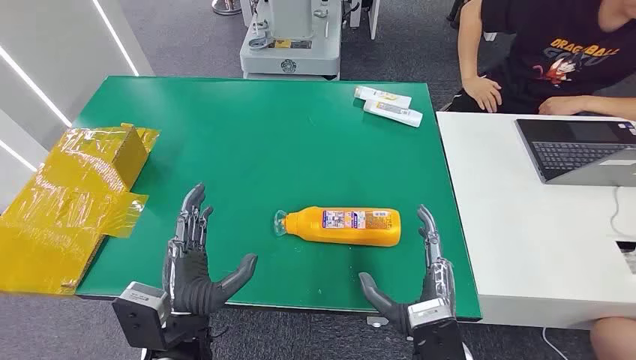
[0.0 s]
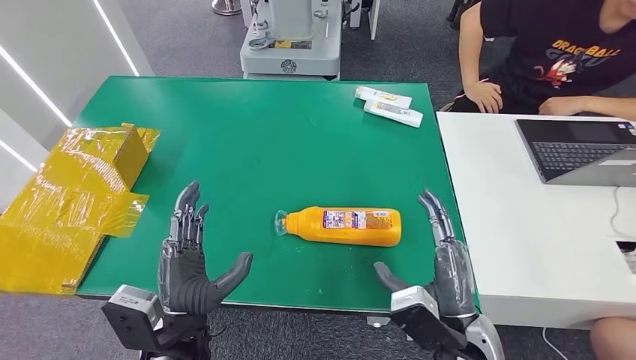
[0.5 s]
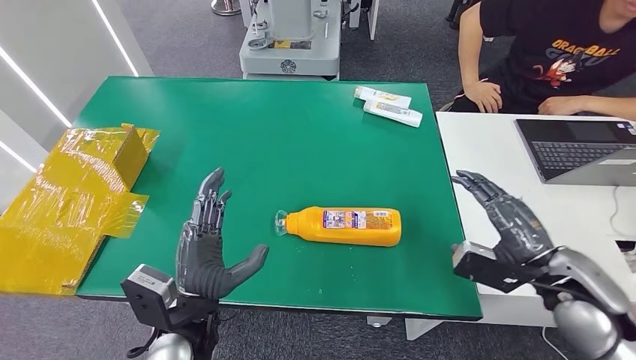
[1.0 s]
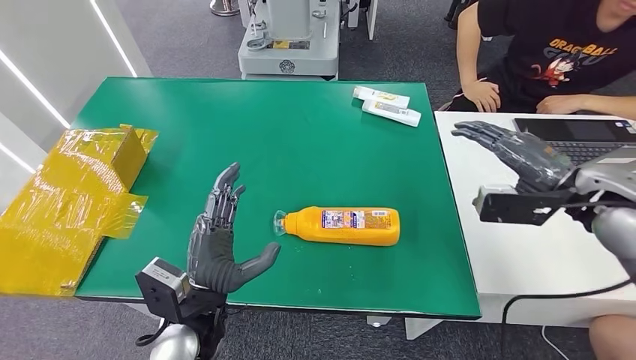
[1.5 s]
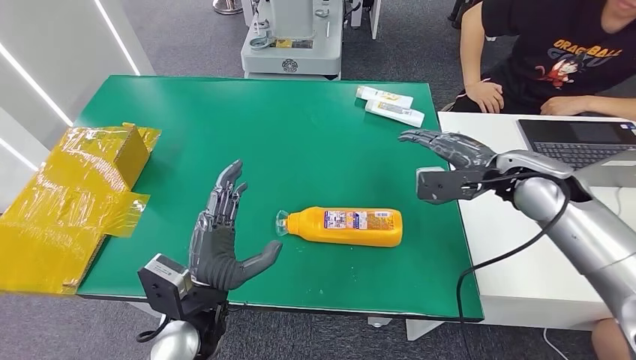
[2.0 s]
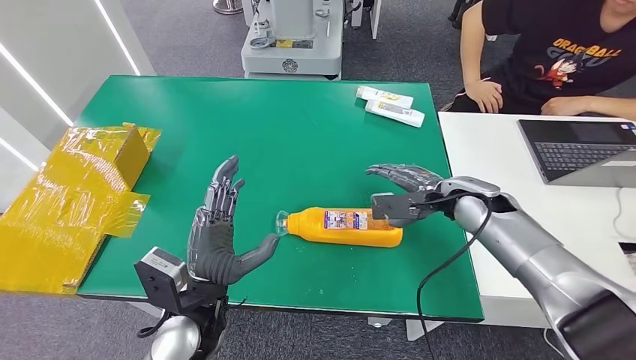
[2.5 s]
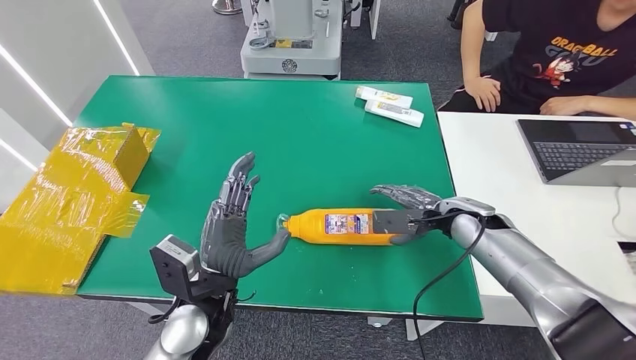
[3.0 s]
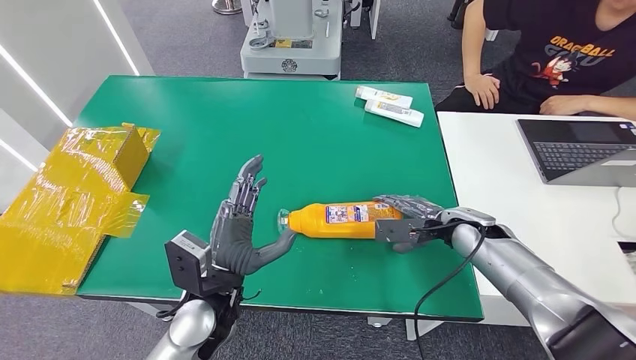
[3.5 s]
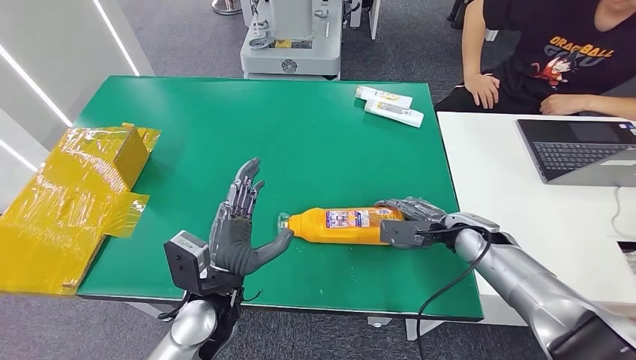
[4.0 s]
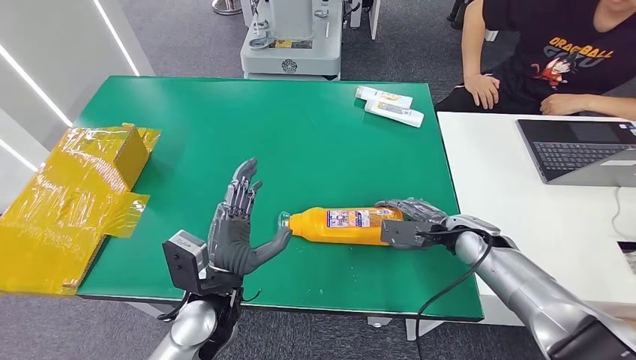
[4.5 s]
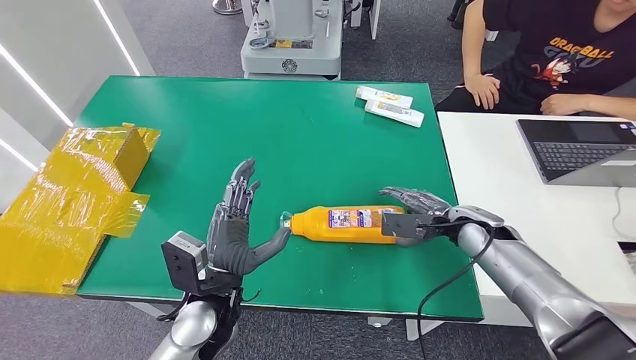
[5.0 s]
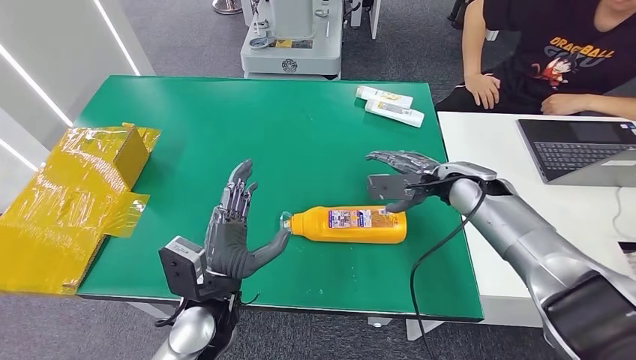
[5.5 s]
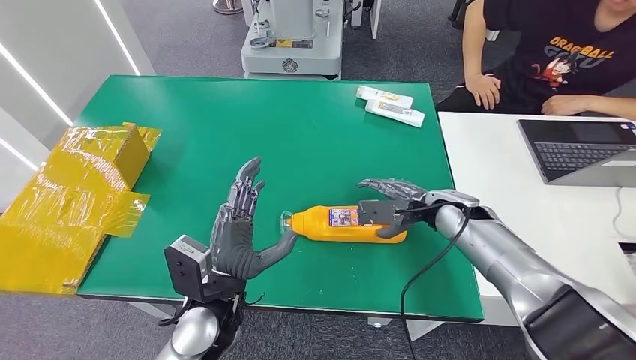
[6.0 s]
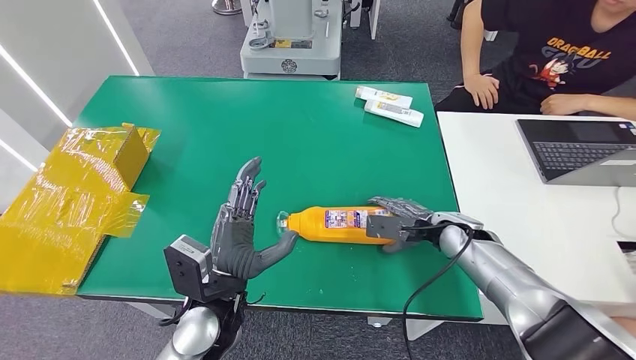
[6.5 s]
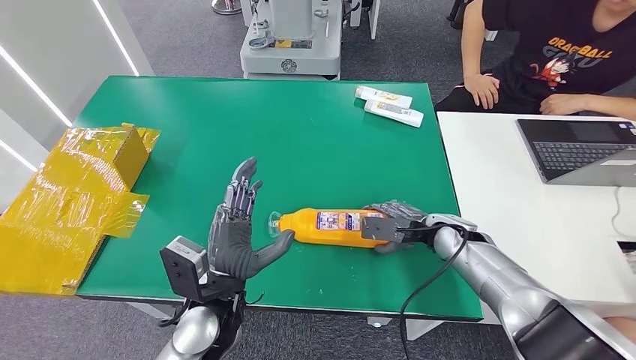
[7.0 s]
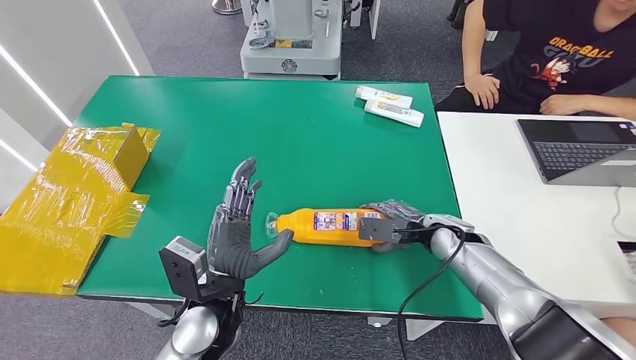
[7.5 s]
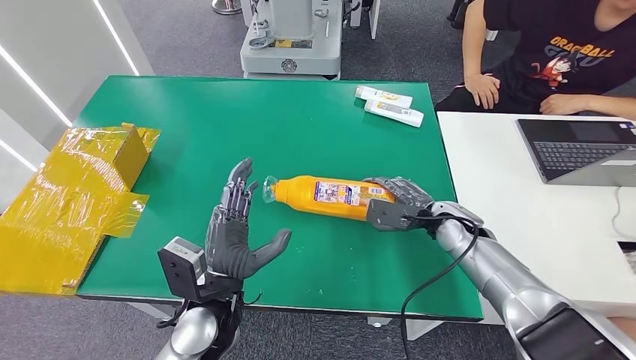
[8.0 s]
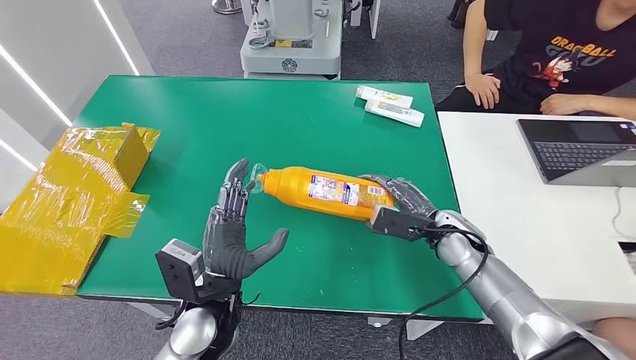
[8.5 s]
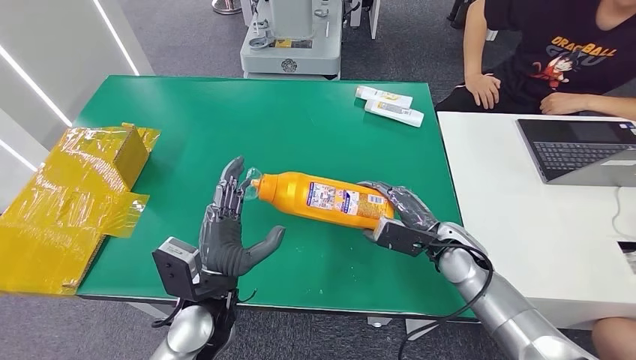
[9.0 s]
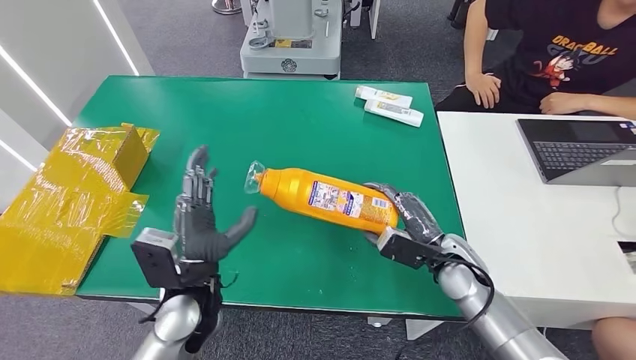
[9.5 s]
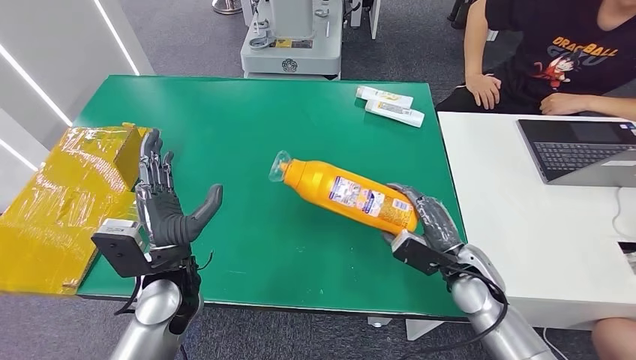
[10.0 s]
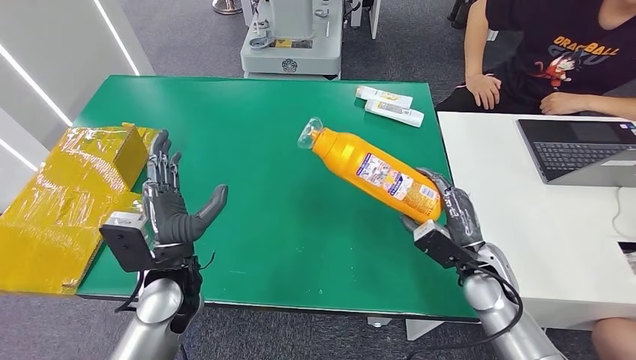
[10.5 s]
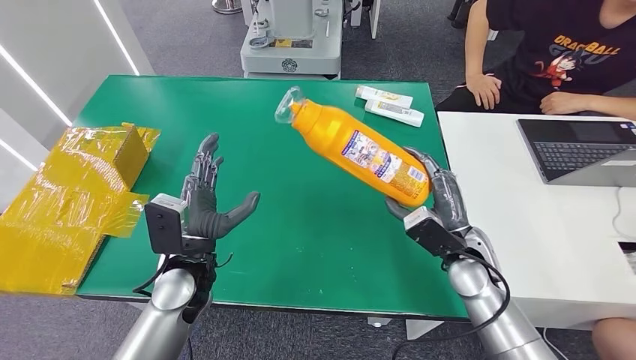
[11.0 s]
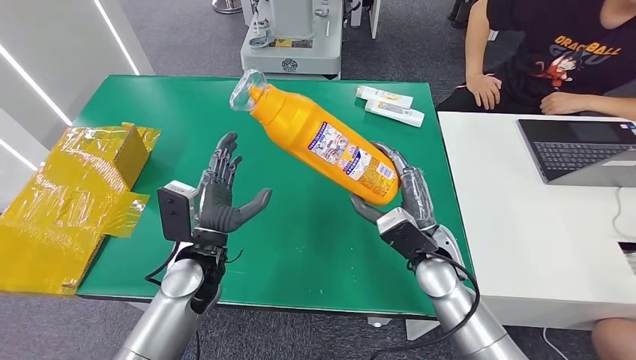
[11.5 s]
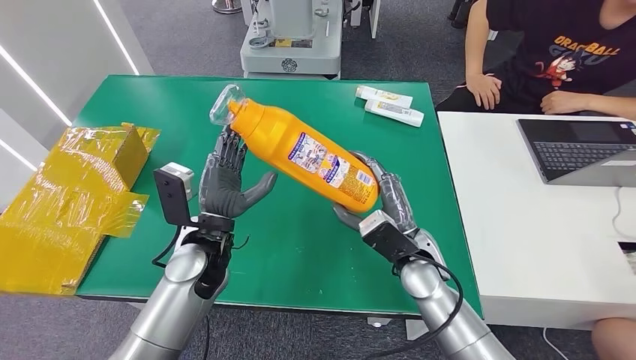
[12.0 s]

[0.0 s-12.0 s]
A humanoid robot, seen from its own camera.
Step, 0.0 to 9.5 s: Pick up the bottle from the table.
2.0 to 4.0 s: The right hand travels downward by approximately 15 cm.
6.0 to 8.0 s: There are only small adjustments of the hands.
8.0 to 10.0 s: The left hand heads to the left, covering some 5 cm. The right hand moves backward, approximately 10 cm.
10.0 to 12.0 s: The left hand changes place by about 5 cm. Meanwhile the right hand heads to the left, covering some 10 cm.

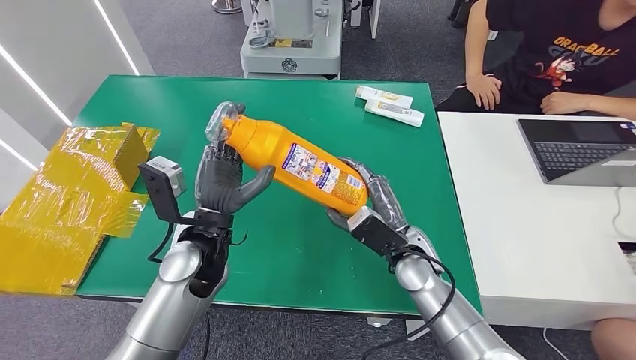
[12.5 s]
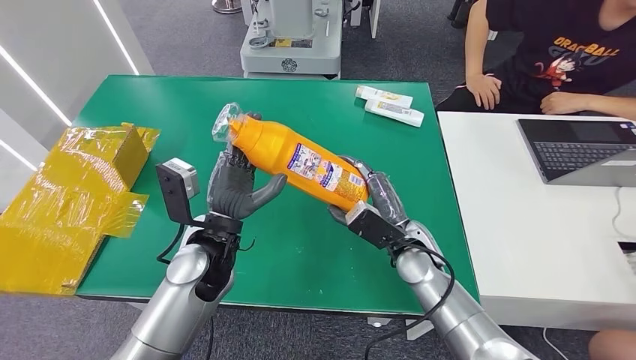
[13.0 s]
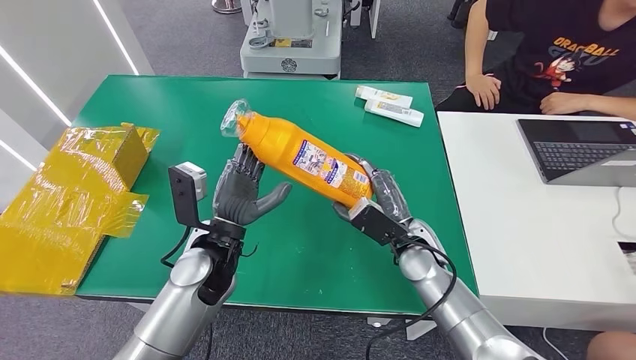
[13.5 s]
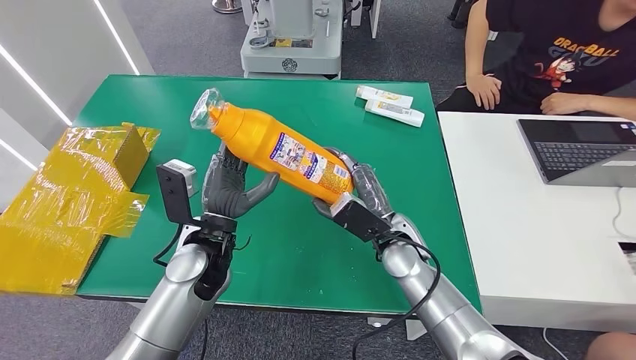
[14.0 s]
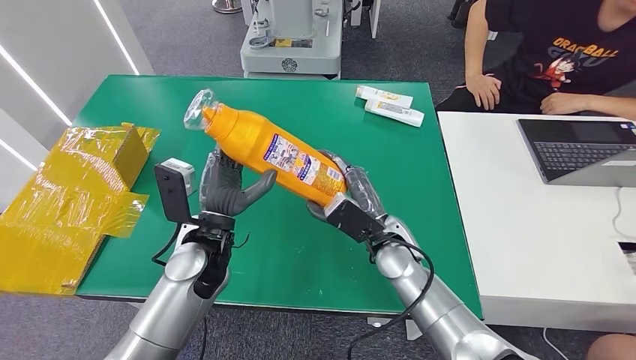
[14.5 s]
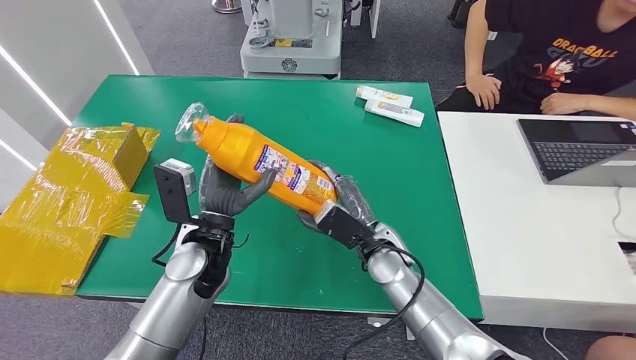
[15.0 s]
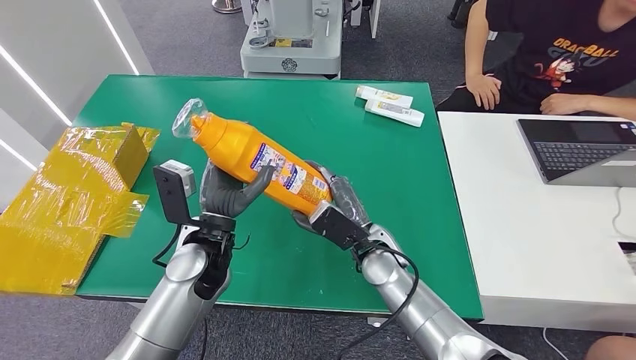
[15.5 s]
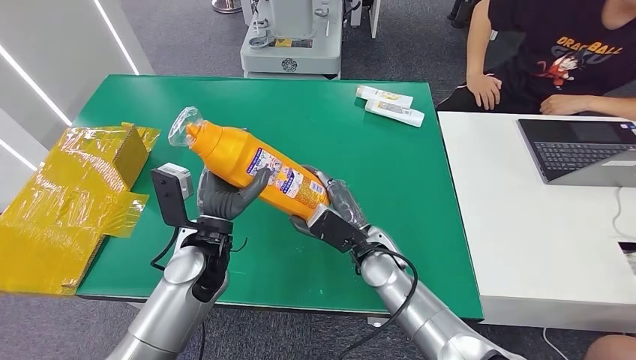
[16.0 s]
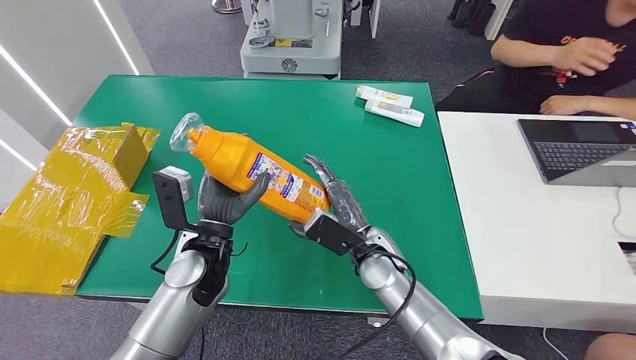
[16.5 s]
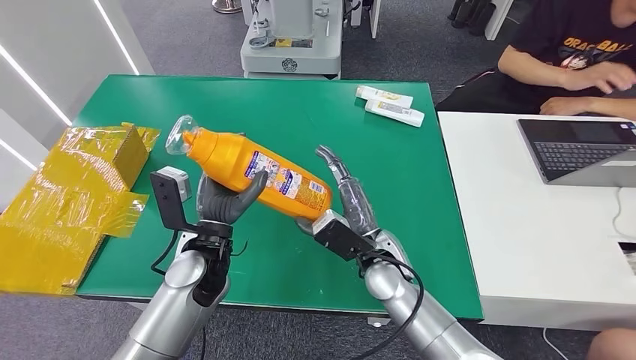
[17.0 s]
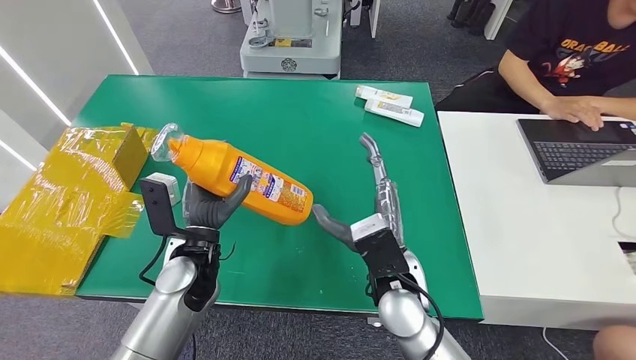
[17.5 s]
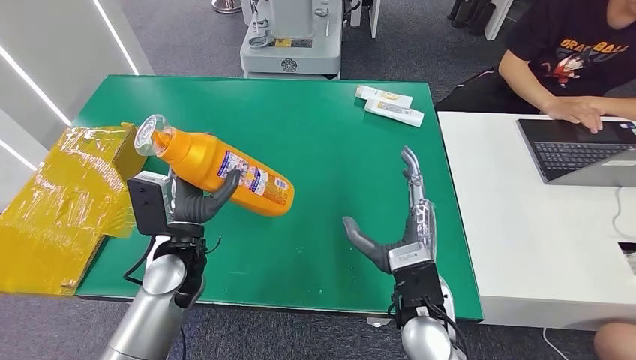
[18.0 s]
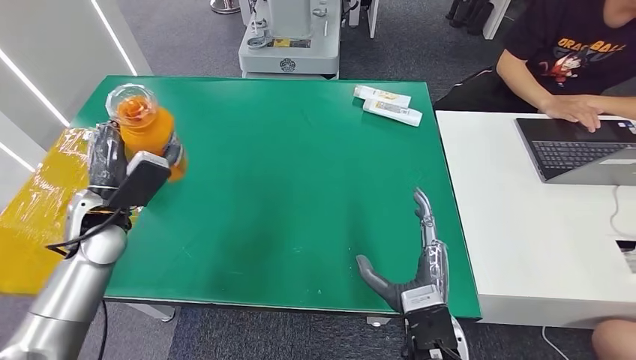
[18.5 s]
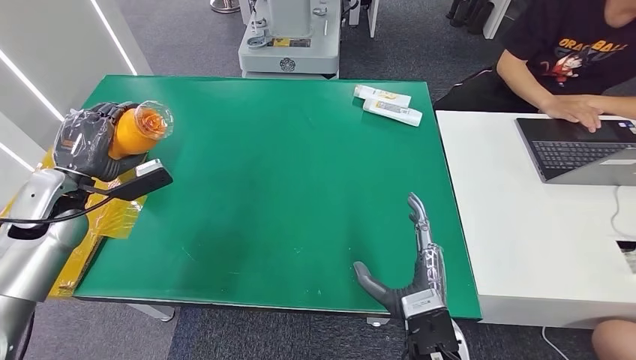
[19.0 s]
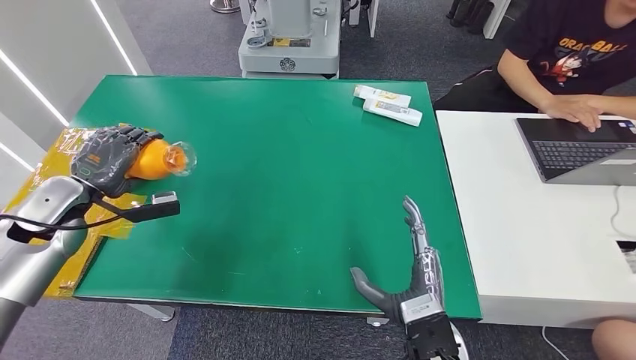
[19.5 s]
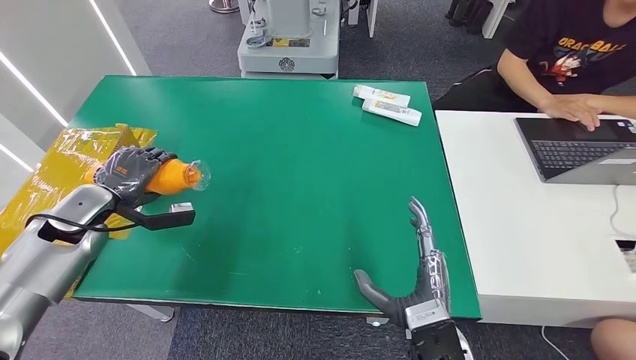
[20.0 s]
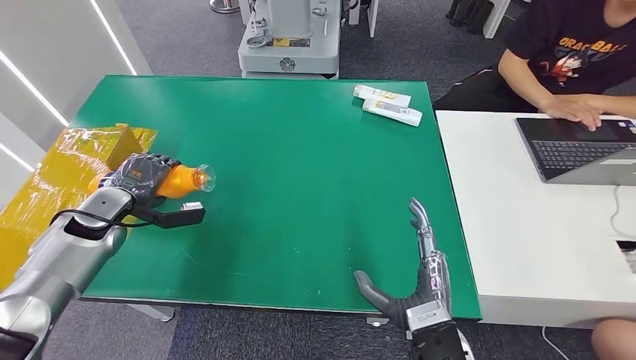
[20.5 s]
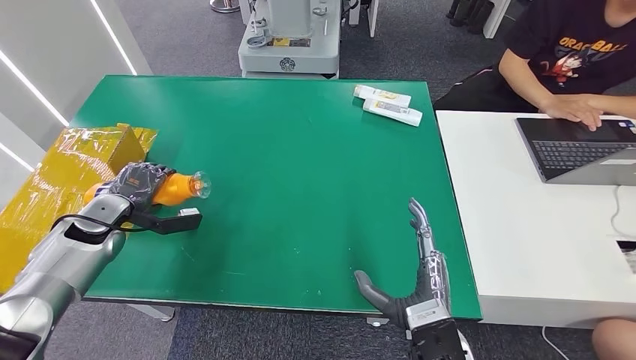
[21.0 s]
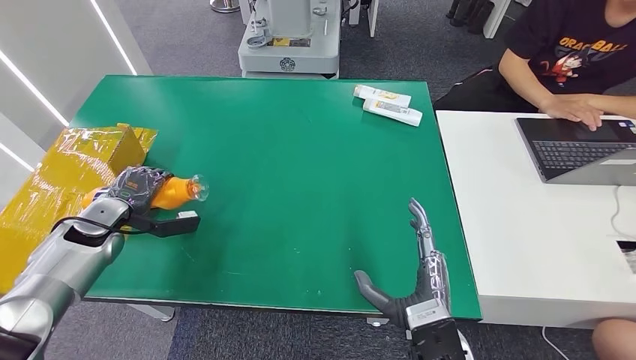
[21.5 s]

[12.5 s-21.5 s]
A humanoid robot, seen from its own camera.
12.5 to 17.0 s: The hands move only a little.
19.5 to 21.5 s: The left hand heads downward, covering about 10 cm.
